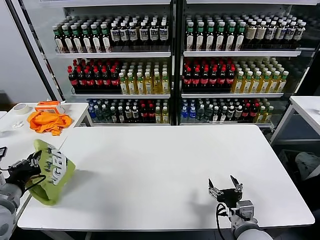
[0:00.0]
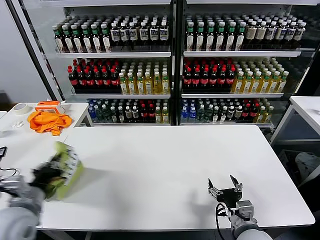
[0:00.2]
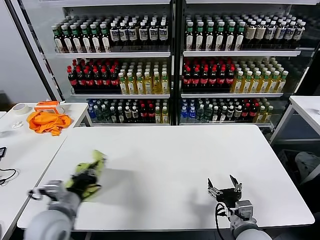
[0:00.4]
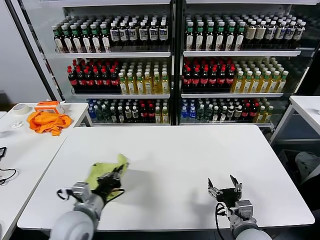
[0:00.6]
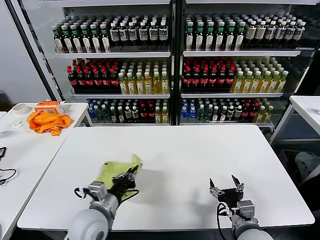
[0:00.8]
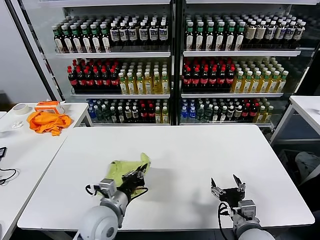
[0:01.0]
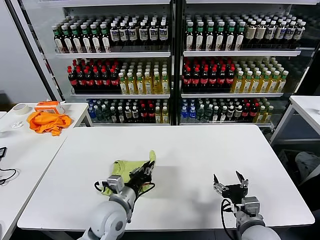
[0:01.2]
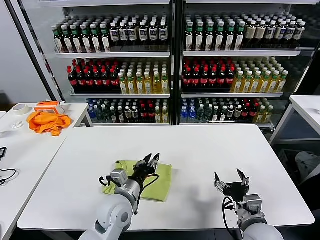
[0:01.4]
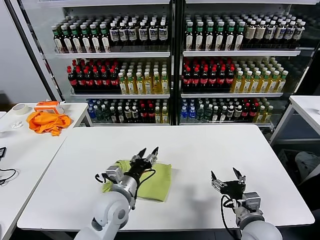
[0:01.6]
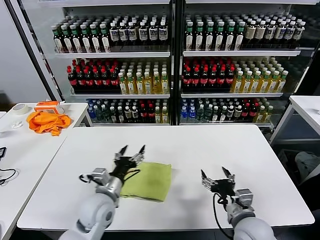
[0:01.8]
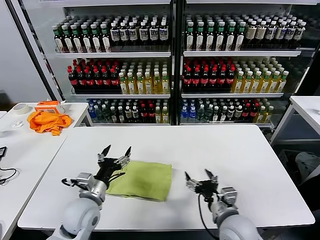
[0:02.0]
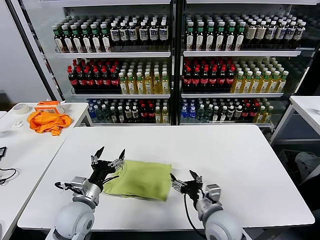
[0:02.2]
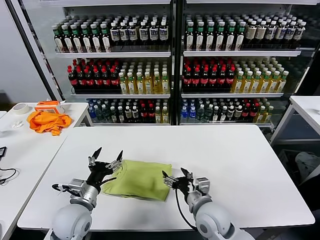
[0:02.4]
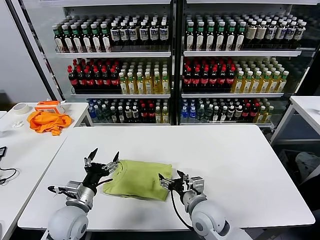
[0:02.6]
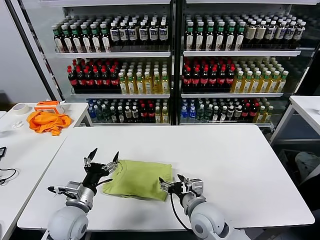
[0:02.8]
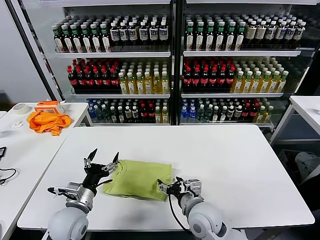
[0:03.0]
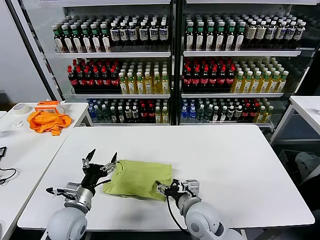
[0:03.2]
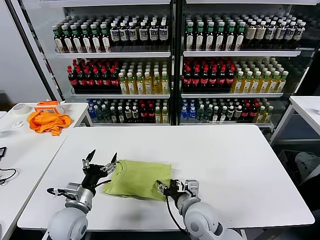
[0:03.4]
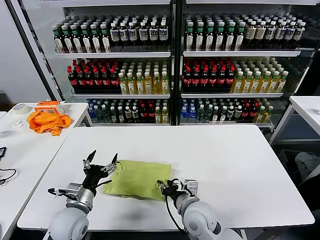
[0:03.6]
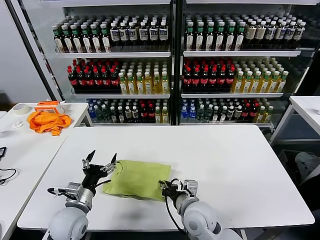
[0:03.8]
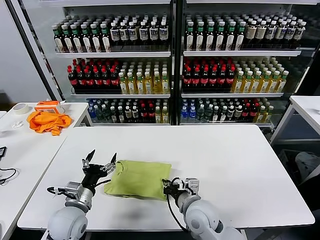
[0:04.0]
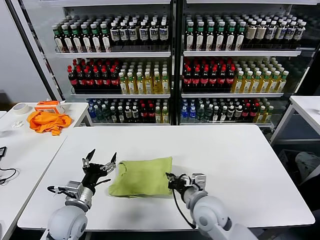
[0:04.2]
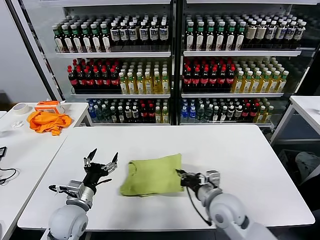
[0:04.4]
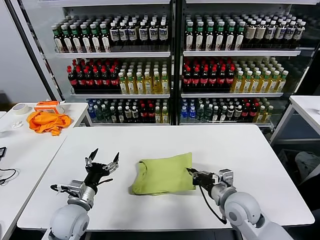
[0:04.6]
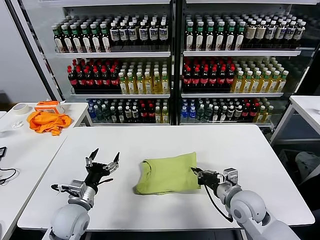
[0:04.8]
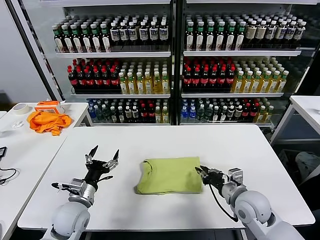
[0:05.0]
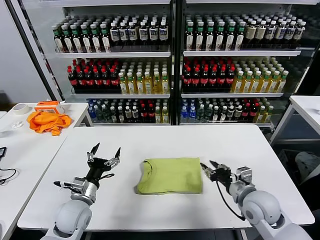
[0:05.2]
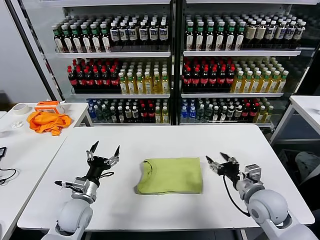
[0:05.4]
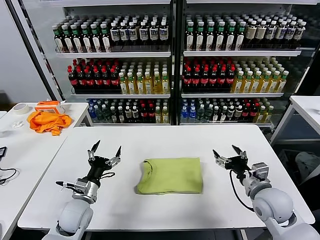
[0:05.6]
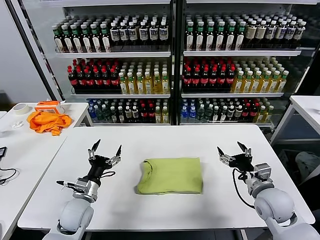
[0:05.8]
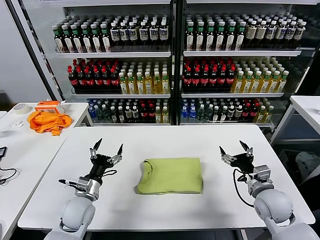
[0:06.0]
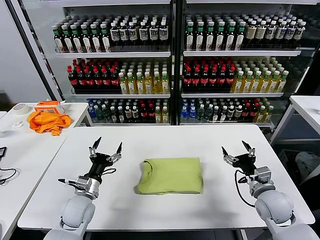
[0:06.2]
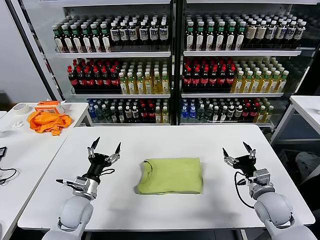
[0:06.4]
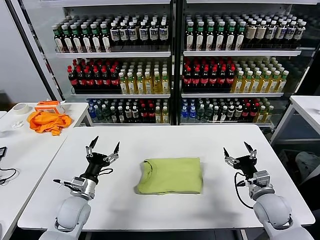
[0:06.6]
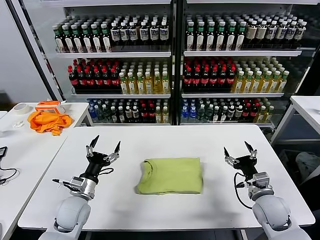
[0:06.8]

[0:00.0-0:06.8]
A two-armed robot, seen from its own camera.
Task of the whole recording: fold and organize the clothes.
Step, 0:01.6 to 0:05.0: Drag the clothes to the center of the table.
0:00.0 to 0:01.4: The left gripper heads to the right, covering some 25 cm.
0:01.4 to 0:02.8: The right gripper heads to the left and forward, covering some 15 cm. Meanwhile the left gripper shifts roughly 15 cm to the left, and opens up.
0:02.8 to 0:04.0: The right gripper closes.
0:04.0 to 0:05.4: The right gripper is displaced to the right by approximately 20 cm, and opens.
0:05.4 to 0:06.8: The right gripper shifts roughly 5 cm downward.
